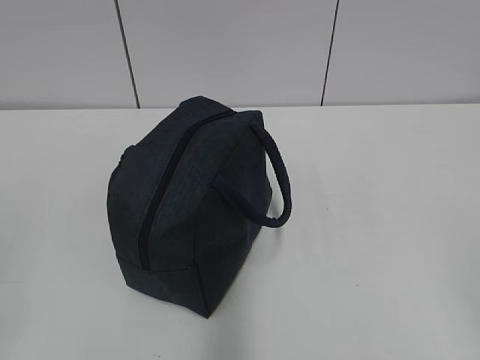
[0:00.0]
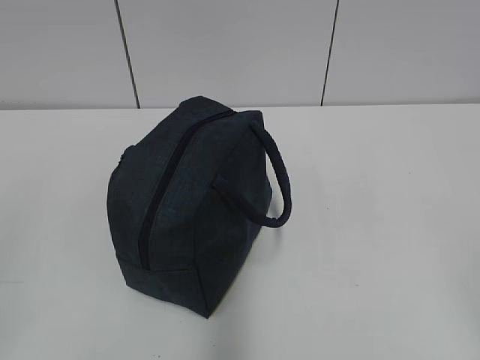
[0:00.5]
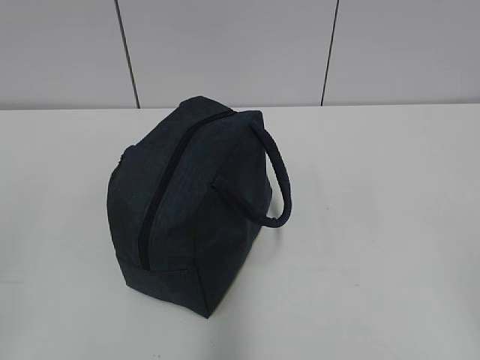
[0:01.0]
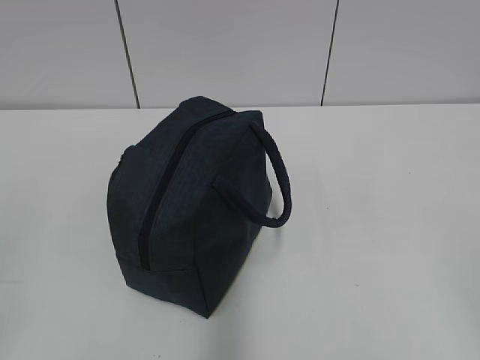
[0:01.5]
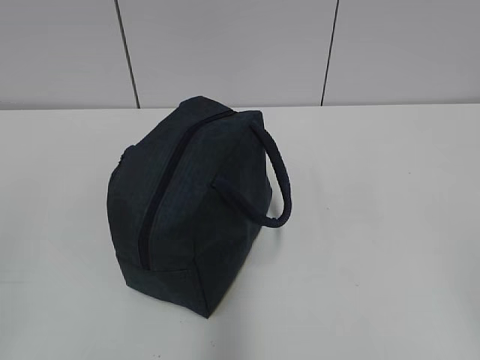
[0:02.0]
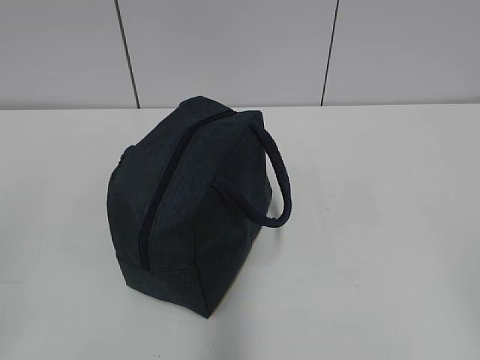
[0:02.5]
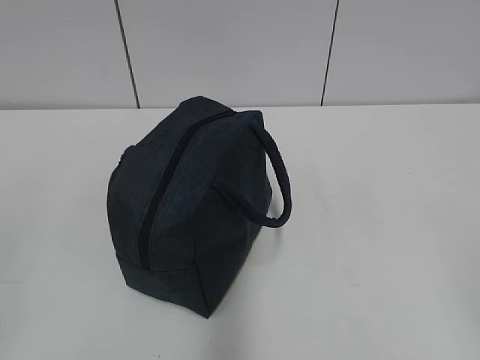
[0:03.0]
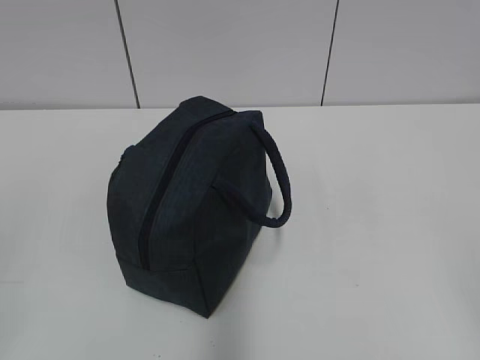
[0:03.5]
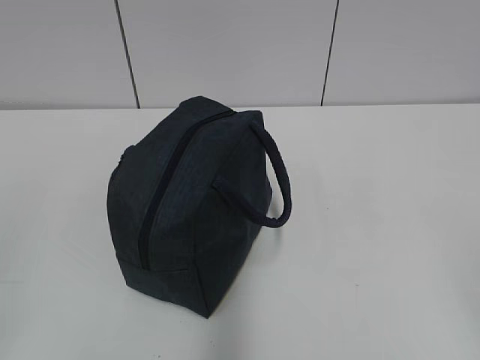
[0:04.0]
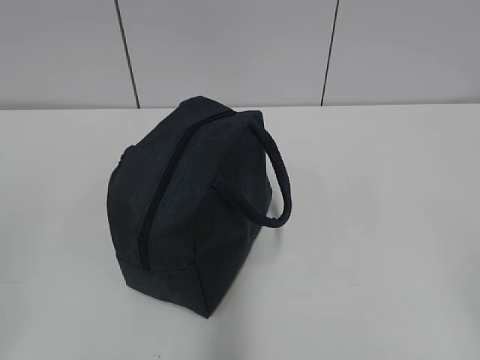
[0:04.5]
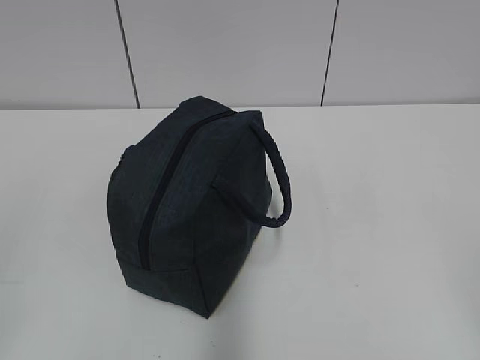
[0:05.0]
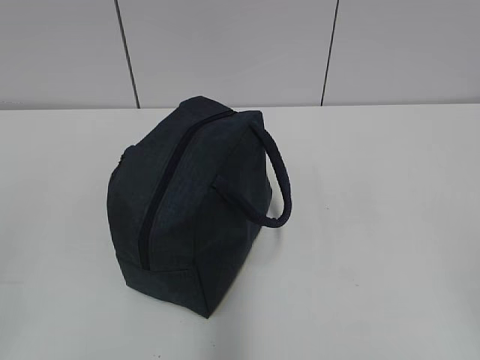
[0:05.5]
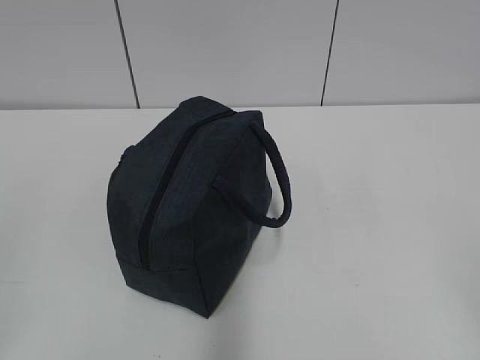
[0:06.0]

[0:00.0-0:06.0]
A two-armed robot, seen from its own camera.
0:00.0 to 0:06.0: Neither gripper changes place.
